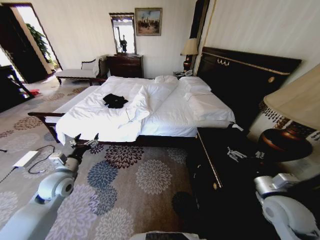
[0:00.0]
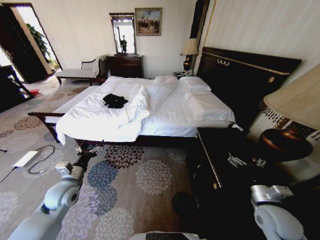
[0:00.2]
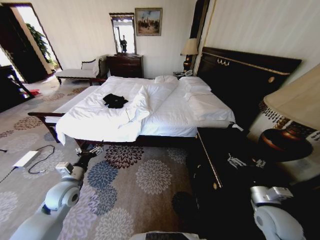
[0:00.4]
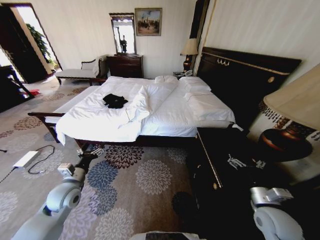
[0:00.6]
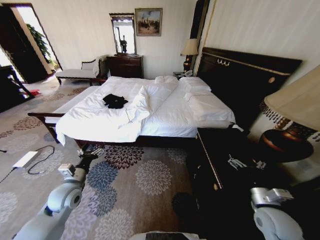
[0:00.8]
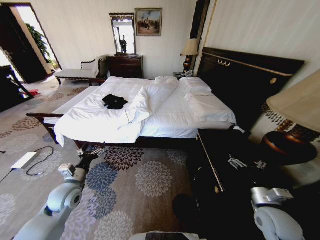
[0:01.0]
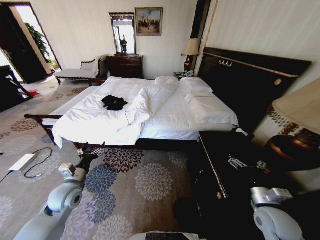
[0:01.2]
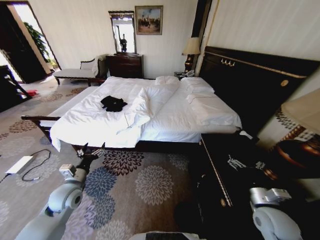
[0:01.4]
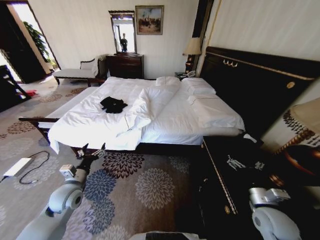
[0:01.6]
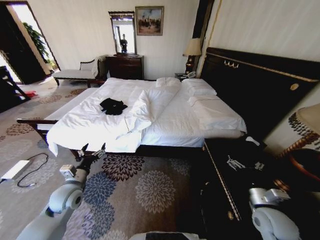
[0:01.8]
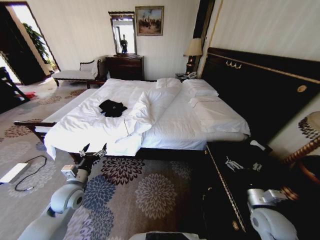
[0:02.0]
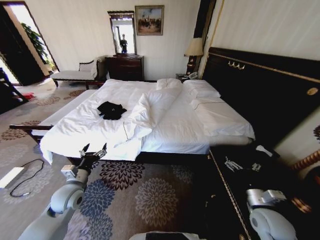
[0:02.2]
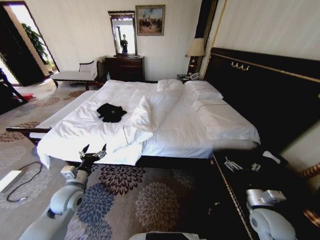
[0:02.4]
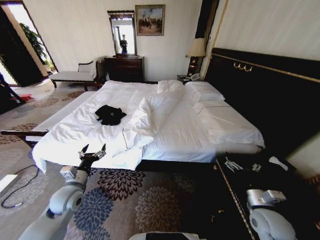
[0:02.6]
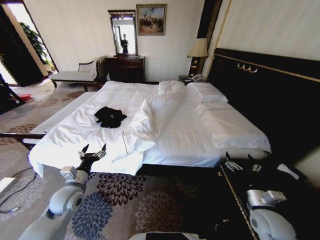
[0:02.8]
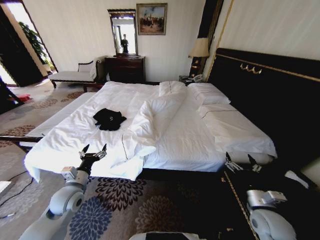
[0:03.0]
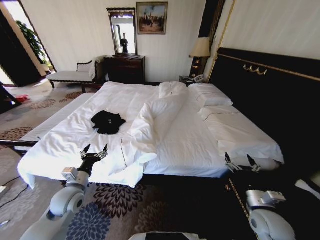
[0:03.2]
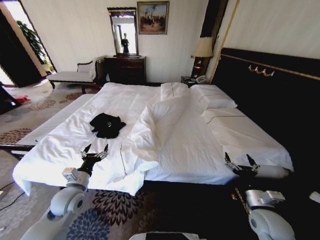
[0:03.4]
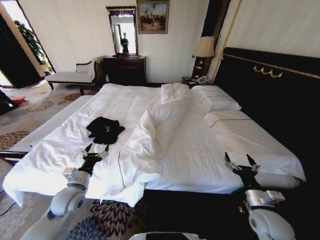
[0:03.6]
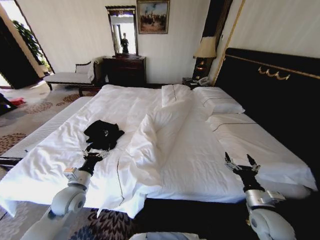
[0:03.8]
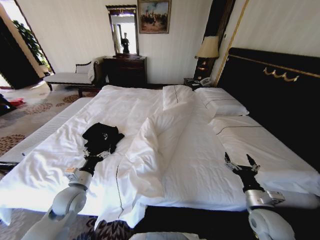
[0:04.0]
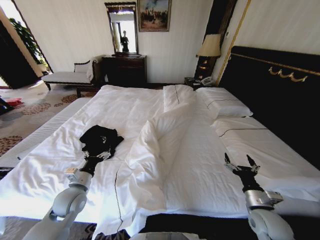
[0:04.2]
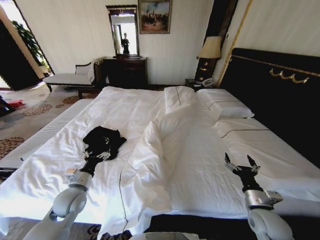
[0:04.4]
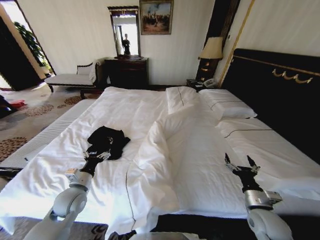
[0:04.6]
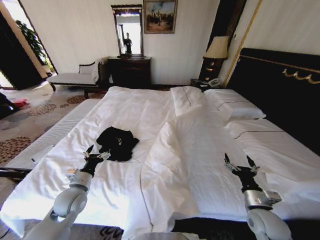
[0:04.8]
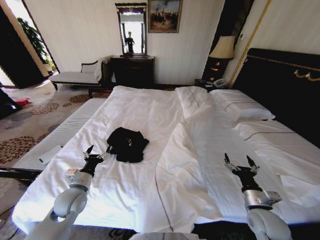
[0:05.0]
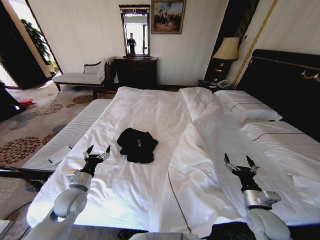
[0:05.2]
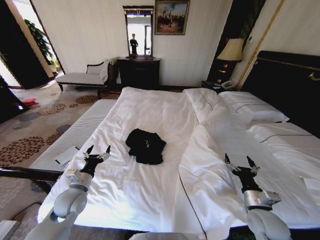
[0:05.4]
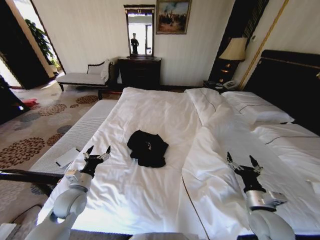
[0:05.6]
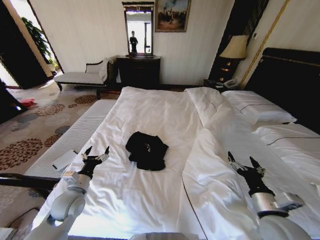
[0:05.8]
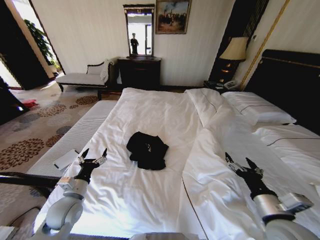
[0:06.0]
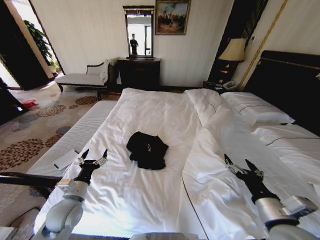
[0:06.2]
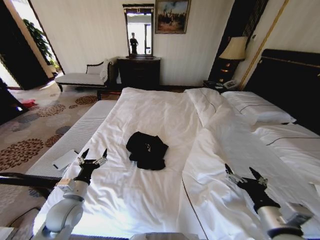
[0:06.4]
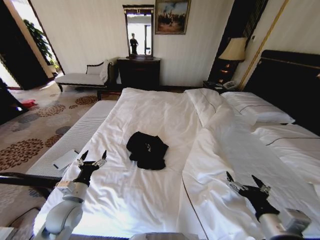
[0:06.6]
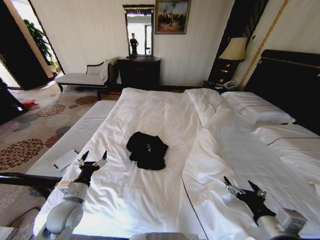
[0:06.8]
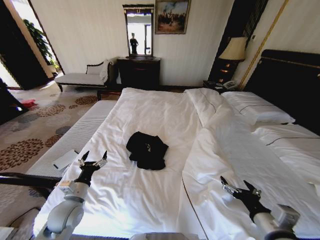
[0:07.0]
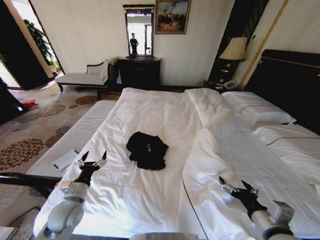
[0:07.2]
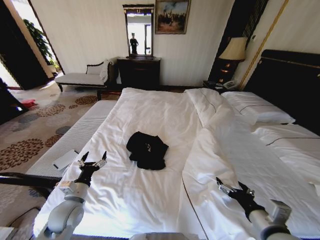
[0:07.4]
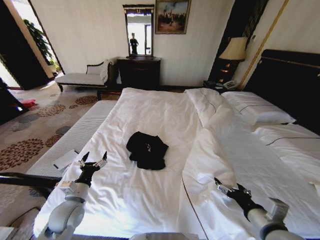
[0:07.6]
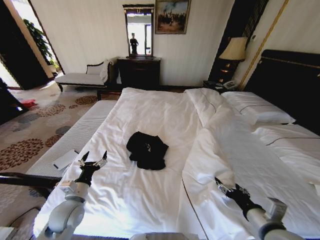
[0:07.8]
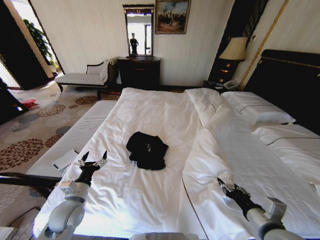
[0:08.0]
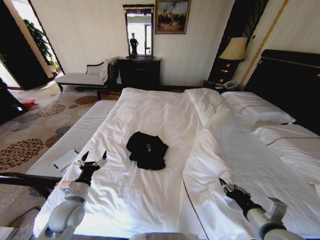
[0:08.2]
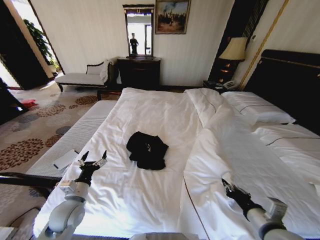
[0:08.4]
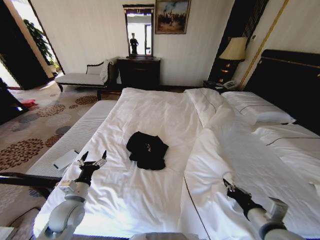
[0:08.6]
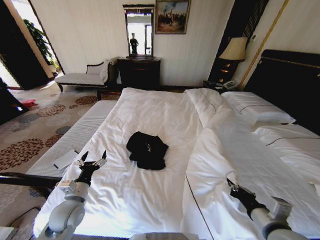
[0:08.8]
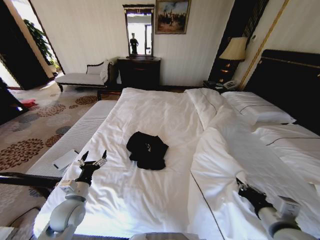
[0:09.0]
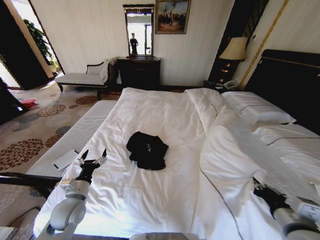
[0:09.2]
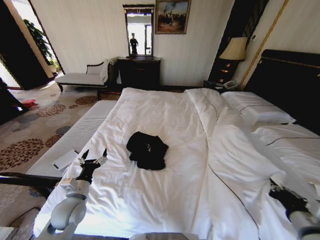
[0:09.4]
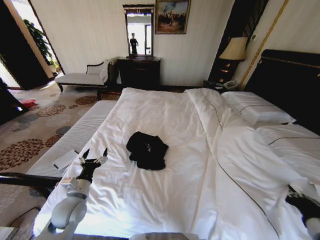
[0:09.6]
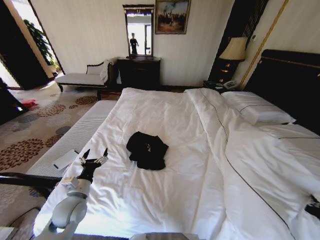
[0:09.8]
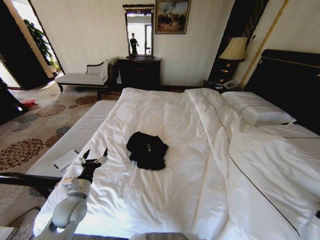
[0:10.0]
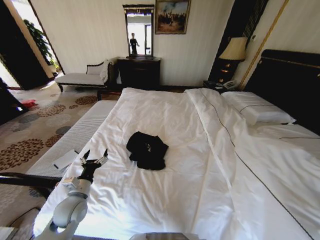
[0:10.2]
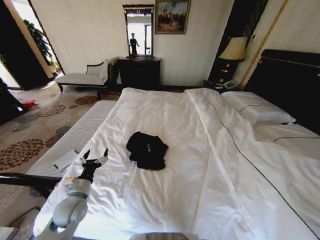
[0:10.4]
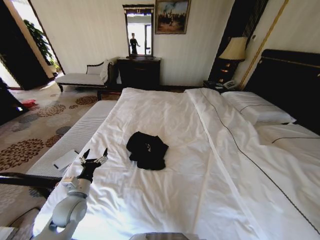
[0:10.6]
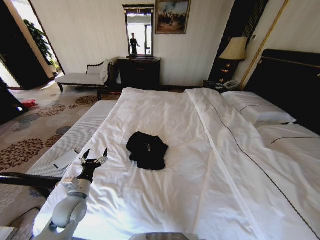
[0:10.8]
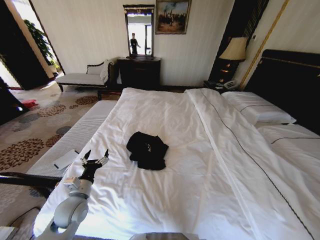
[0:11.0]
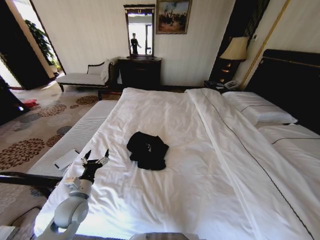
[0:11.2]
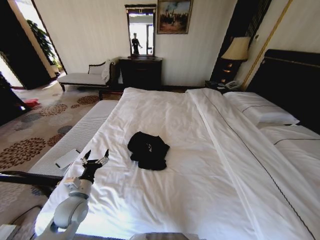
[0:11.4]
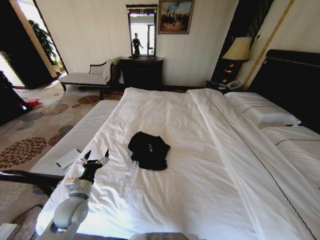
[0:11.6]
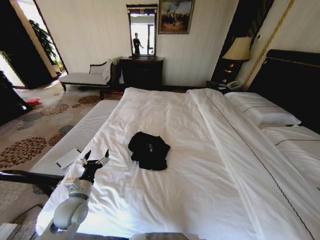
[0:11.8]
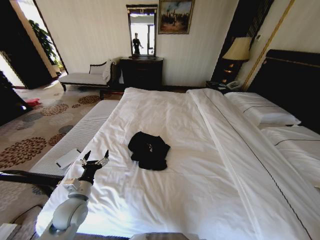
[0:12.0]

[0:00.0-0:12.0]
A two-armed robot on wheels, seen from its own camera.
Task of the whole recording: Fold the clothes on the bed.
0:04.4 to 0:06.0: The right gripper goes some 10 cm upward.
0:07.6 to 0:09.0: The right gripper closes up.
0:09.0 to 0:10.4: The right gripper heads to the right, covering approximately 20 cm.
0:10.4 to 0:12.0: The right gripper is displaced downward by about 15 cm.

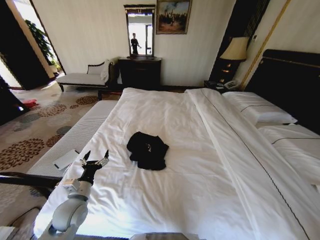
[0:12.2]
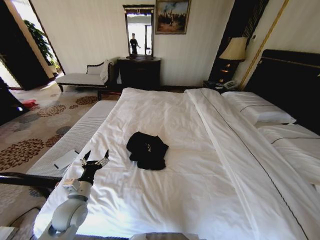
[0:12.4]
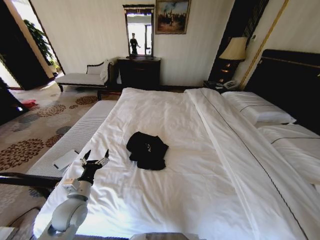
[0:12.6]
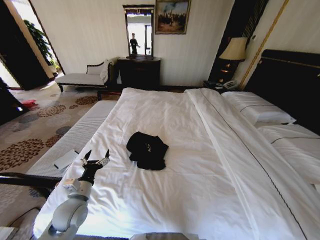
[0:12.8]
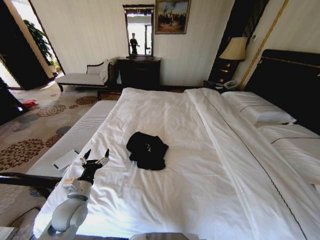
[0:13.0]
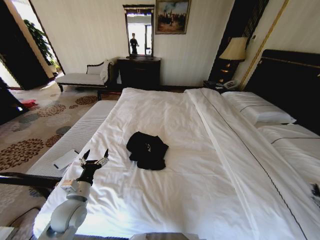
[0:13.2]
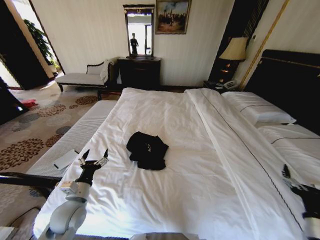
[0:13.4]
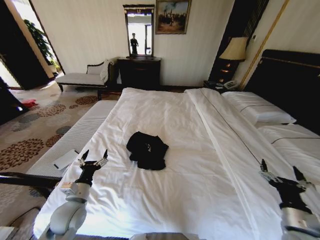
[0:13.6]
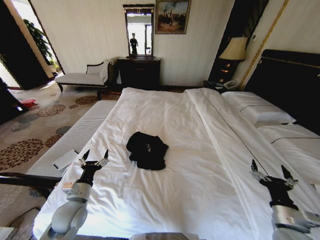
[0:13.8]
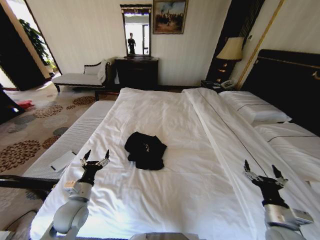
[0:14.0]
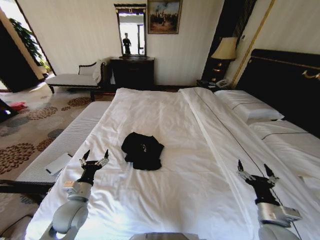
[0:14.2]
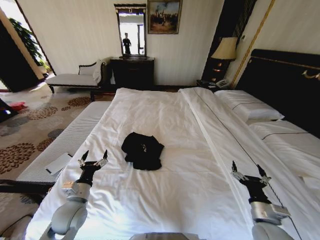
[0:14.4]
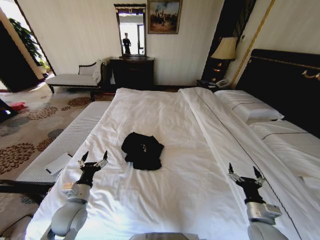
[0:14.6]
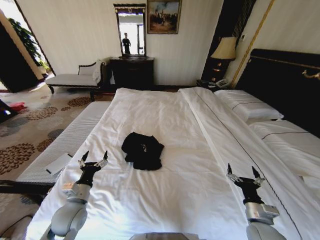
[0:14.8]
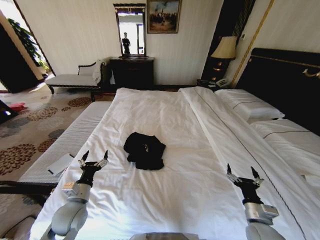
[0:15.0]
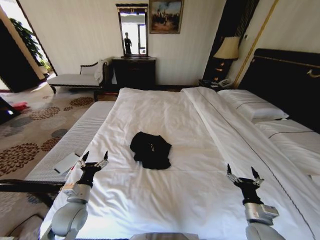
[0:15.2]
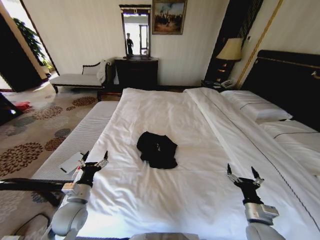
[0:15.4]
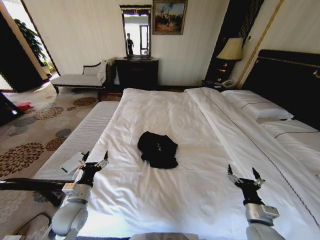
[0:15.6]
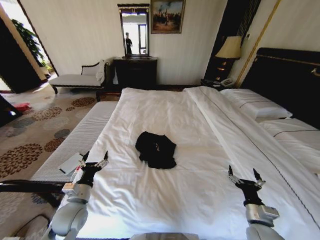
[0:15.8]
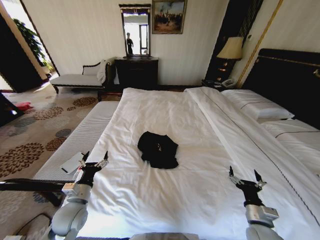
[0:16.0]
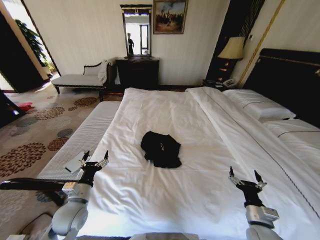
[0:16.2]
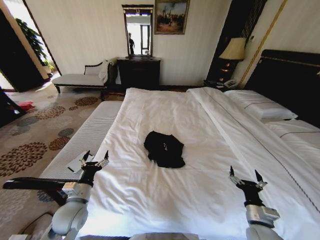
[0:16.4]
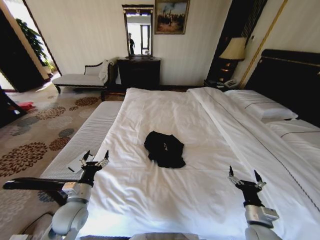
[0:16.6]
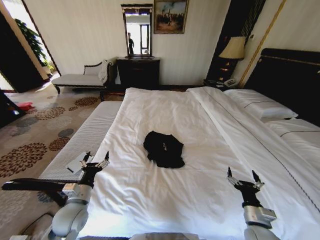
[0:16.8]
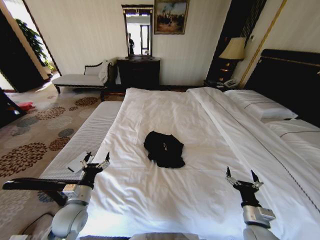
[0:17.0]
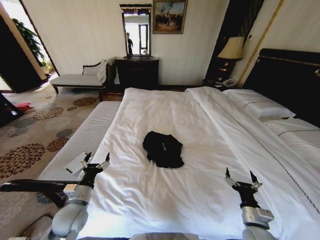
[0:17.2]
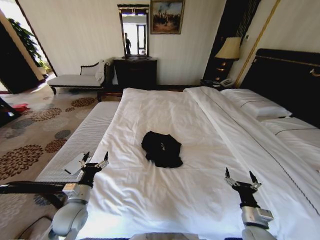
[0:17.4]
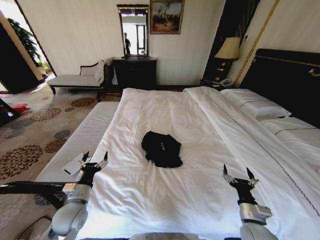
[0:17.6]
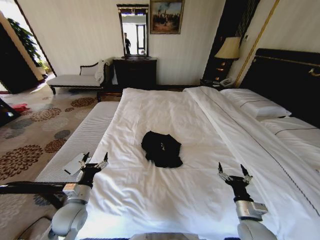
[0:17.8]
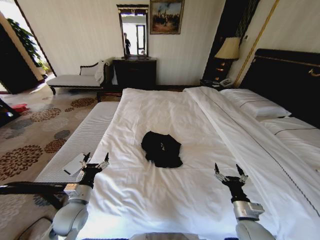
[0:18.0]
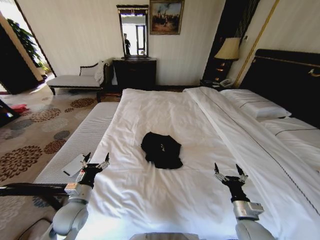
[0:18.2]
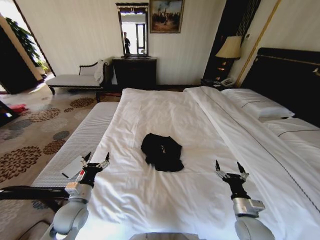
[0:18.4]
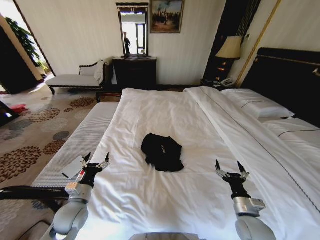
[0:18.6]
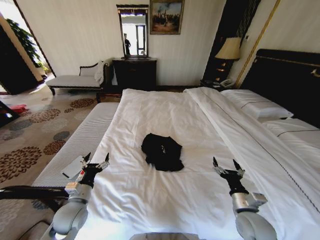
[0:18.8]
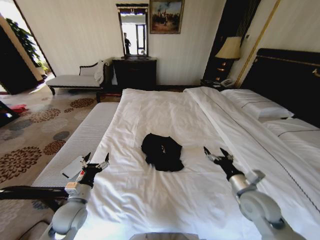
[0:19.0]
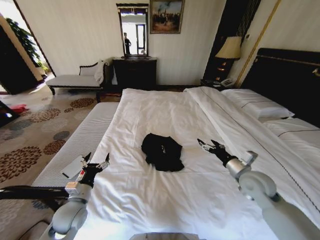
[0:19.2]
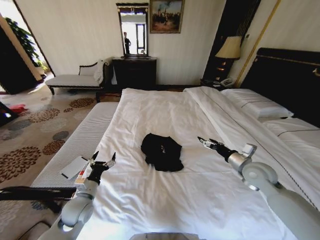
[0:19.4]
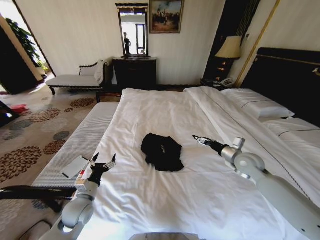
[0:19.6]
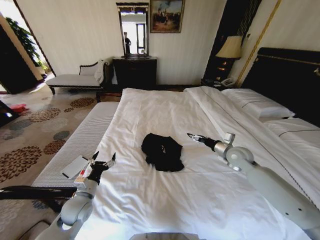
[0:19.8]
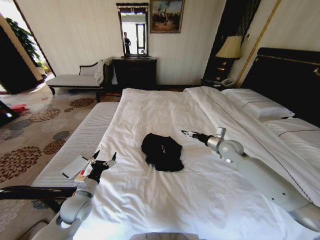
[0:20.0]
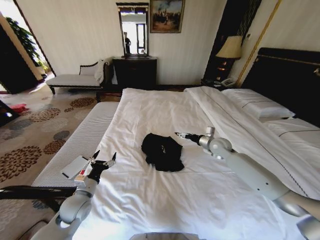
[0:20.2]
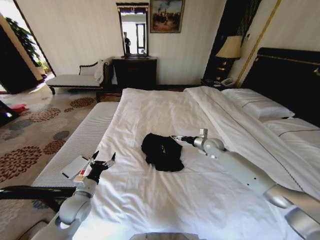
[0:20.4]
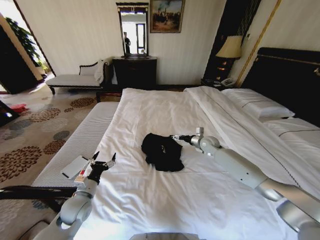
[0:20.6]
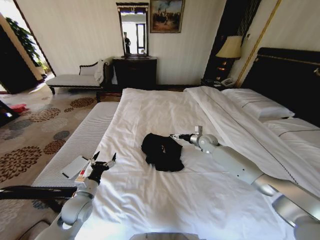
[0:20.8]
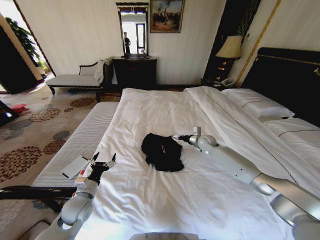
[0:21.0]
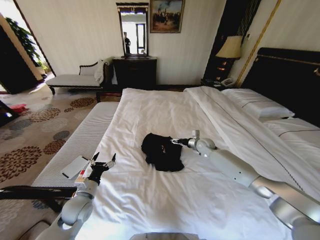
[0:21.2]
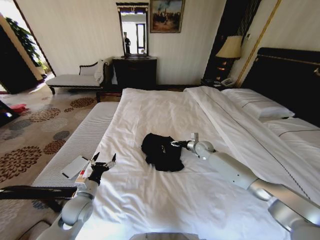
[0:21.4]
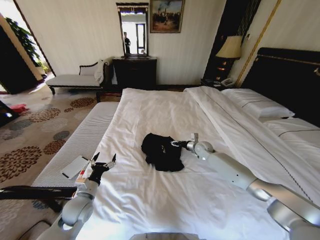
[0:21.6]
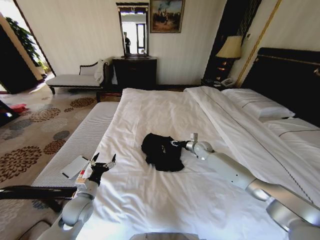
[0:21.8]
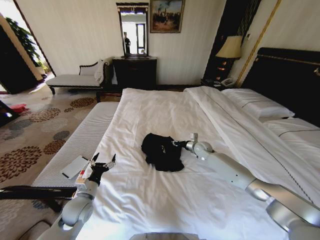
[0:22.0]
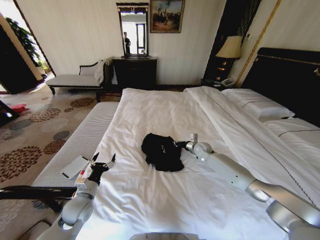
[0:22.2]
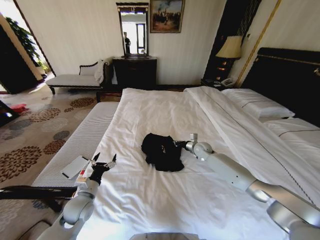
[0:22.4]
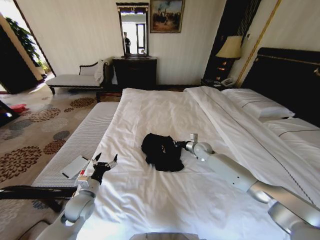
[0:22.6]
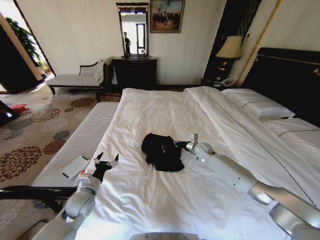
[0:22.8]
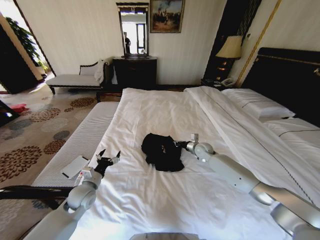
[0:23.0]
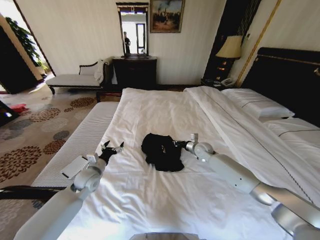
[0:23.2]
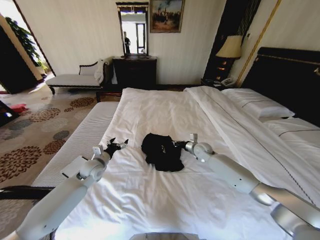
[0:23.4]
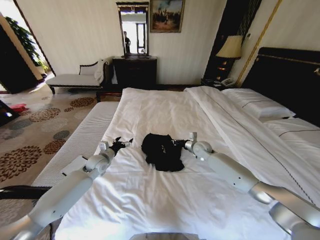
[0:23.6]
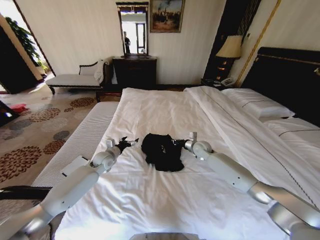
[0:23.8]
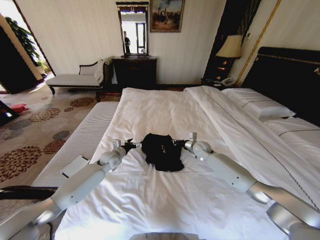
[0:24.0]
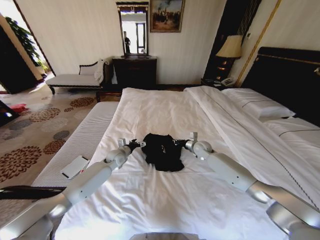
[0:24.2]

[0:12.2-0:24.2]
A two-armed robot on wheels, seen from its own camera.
Task of the whole recording: Fold the clothes on the bed.
0:12.2 to 0:13.8: The right gripper shifts roughly 25 cm to the left, forward and upward, and opens its fingers.
0:13.8 to 0:15.2: The right gripper is displaced downward by roughly 5 cm.
0:18.2 to 0:19.8: The right gripper travels forward and upward by approximately 30 cm.
0:19.8 to 0:21.2: The right gripper goes roughly 15 cm forward, to the left and downward.
0:21.2 to 0:22.6: The right gripper closes.
0:22.6 to 0:24.2: The left gripper goes some 25 cm forward.
